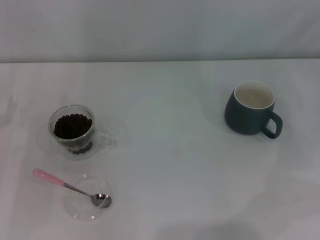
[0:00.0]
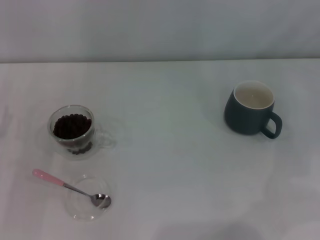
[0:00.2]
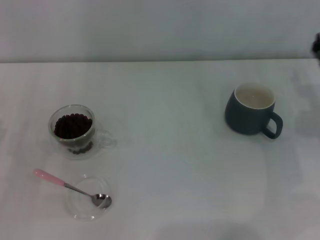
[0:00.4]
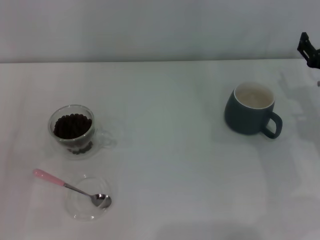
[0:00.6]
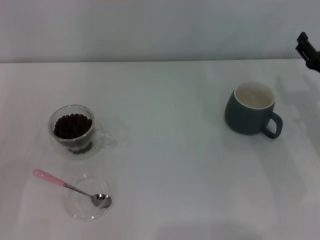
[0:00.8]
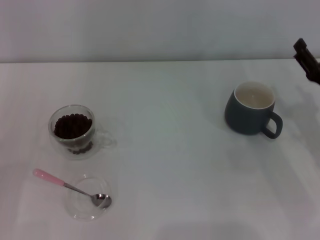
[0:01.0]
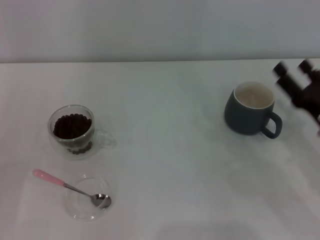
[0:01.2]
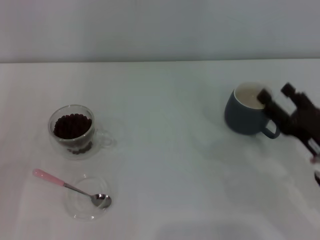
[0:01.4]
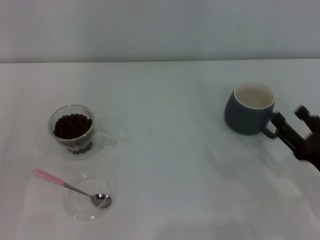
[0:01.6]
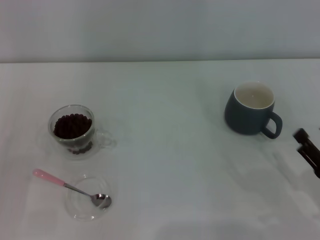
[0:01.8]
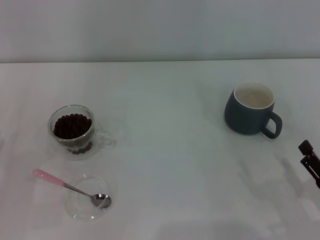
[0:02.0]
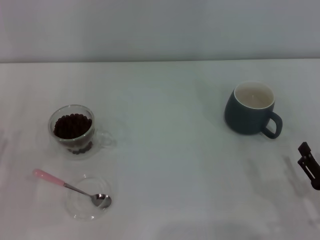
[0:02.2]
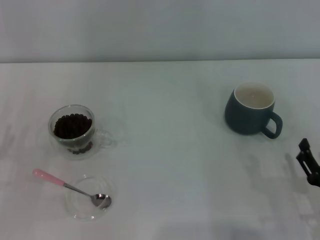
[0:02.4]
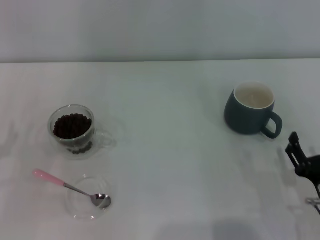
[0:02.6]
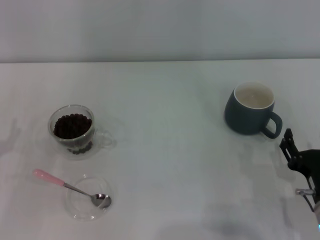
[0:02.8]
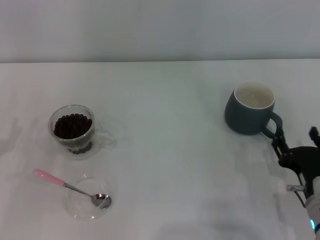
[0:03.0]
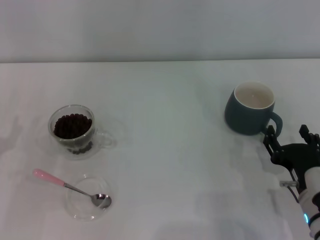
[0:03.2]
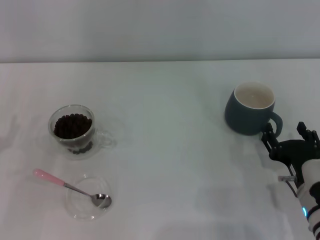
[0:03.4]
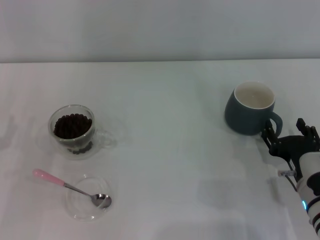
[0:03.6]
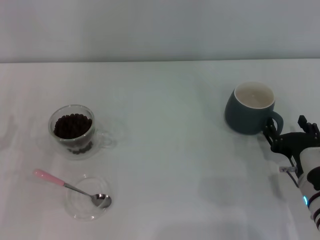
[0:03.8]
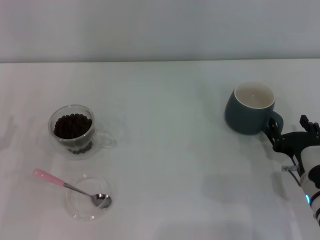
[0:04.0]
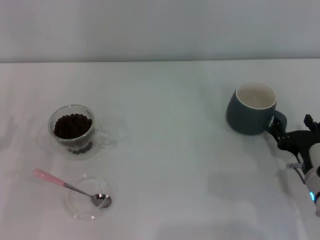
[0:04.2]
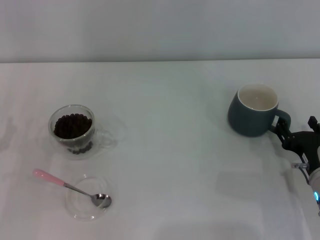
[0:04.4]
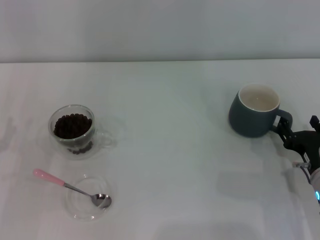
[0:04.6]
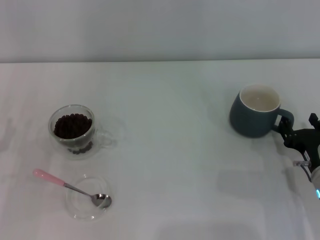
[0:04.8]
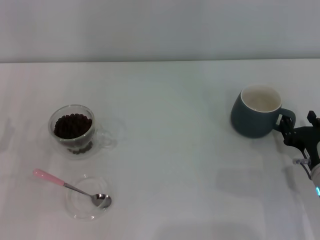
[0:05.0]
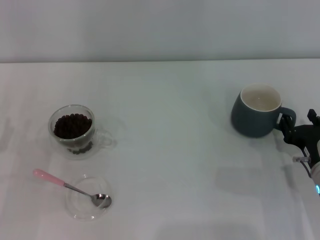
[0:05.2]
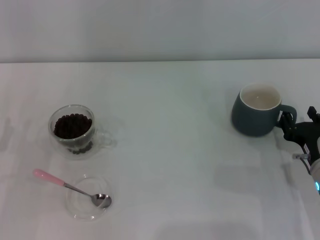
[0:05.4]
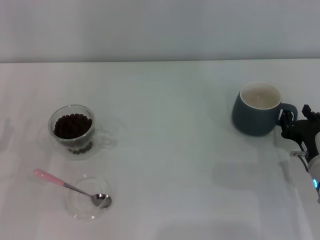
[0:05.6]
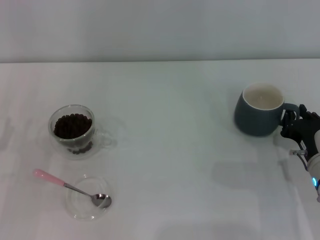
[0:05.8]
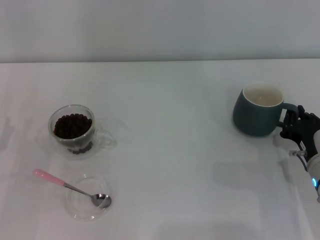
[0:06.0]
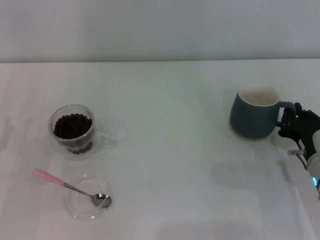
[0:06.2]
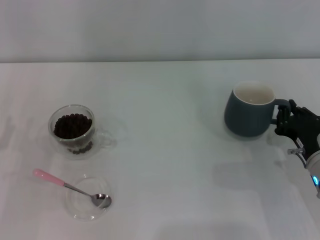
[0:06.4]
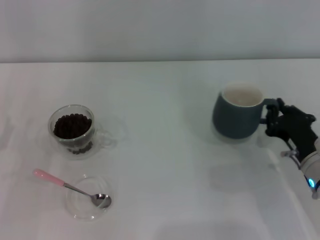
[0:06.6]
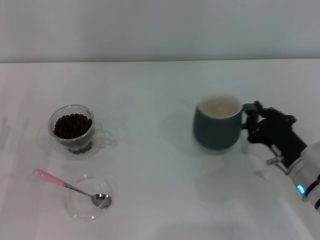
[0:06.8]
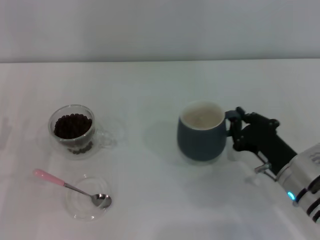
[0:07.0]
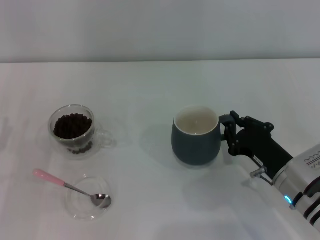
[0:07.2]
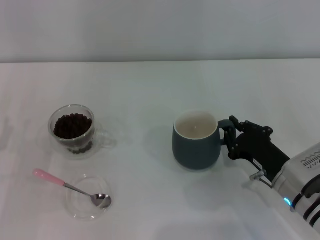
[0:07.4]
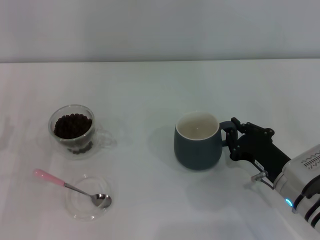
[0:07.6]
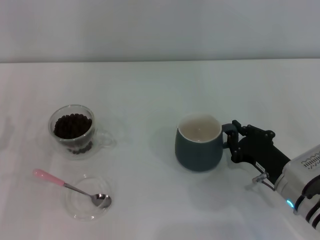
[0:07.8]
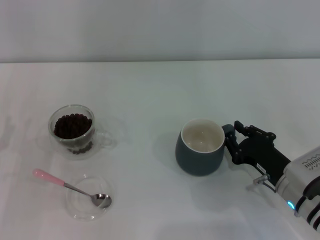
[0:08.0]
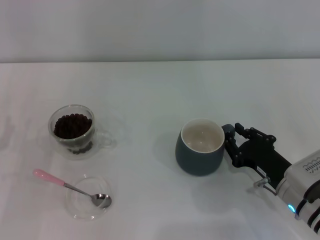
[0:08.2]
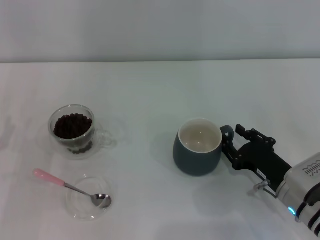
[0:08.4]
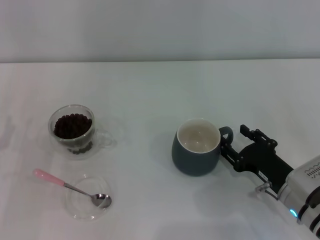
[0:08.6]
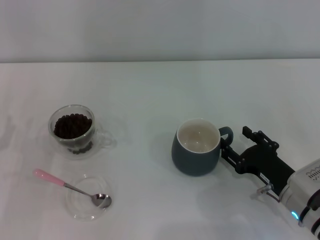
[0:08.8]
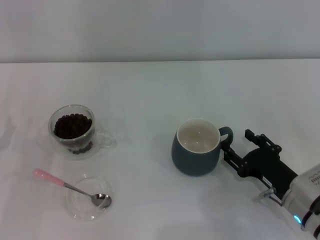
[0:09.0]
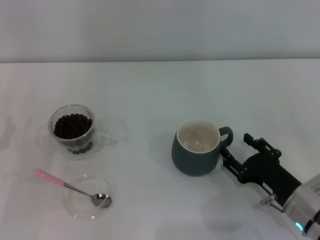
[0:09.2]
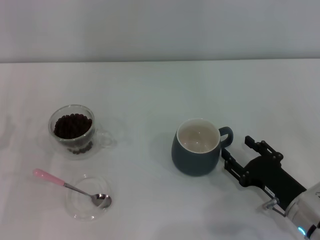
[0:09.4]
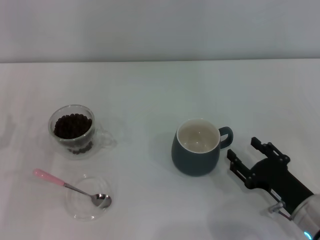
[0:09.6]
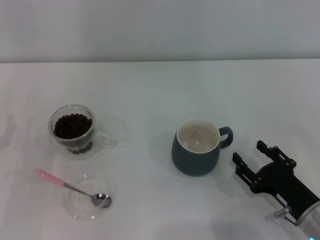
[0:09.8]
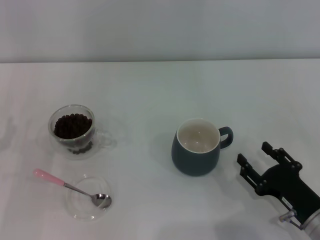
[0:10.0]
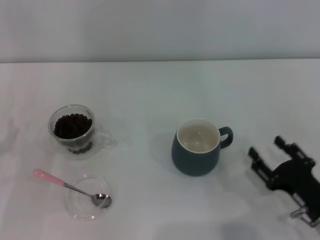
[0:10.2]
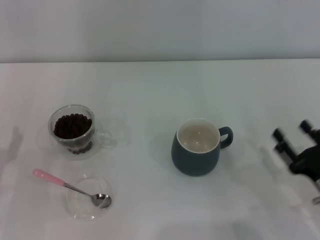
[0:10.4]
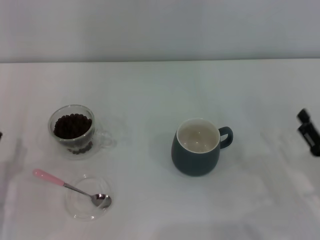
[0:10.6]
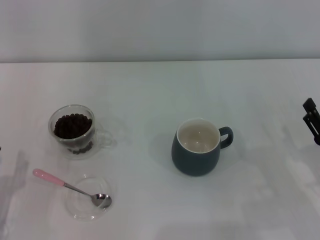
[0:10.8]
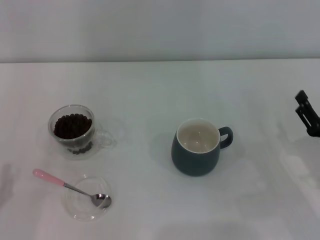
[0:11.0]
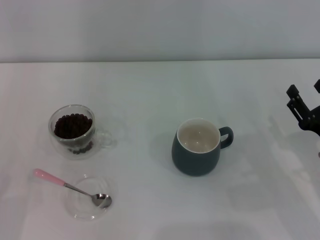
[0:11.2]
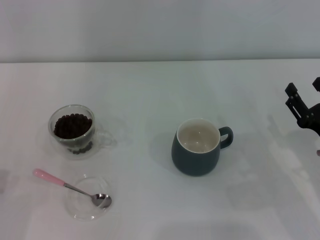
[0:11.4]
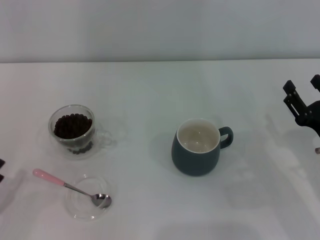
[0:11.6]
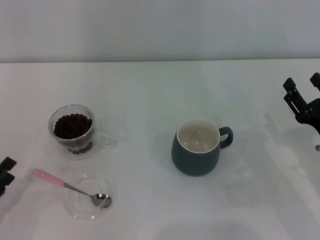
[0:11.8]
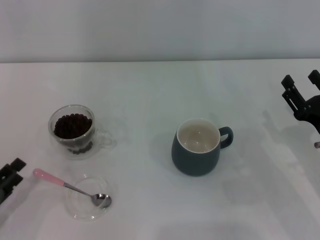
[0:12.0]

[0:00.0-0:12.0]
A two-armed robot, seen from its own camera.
Task of the whole recording: Use a pink spoon to take out the coffee beans from the glass and pour them into the gray cup.
Step, 0:00.0 to 0:09.8: Move the cup to the center of view with the left gripper.
0:00.0 to 0:01.6: The right gripper heads backward, to the left and downward, covering approximately 20 cm.
0:01.6 to 0:03.0: The right gripper shifts roughly 5 cm to the left.
0:03.0 to 0:04.4: The right gripper moves approximately 5 cm.
0:04.4 to 0:06.0: The right gripper closes its fingers.
0:07.6 to 0:09.0: The right gripper opens.
0:09.0 to 0:10.4: The right gripper changes place by approximately 5 cm.
0:10.4 to 0:12.0: The left gripper heads backward, covering about 5 cm; the right gripper is displaced forward by approximately 5 cm.

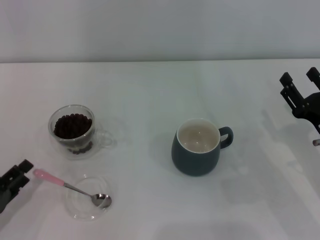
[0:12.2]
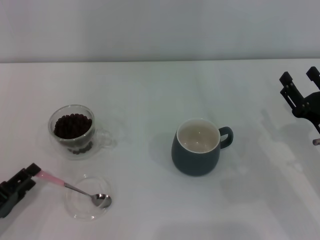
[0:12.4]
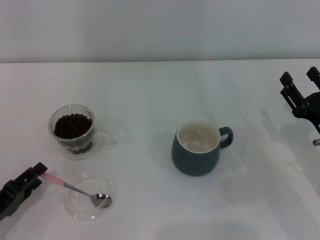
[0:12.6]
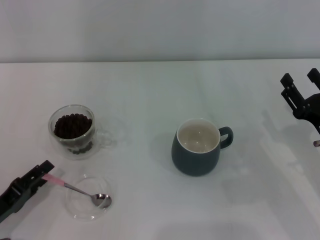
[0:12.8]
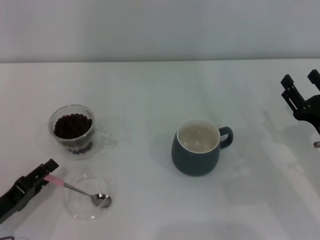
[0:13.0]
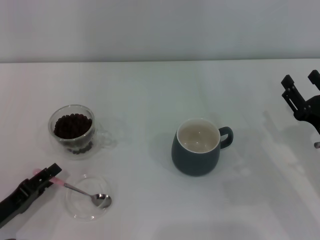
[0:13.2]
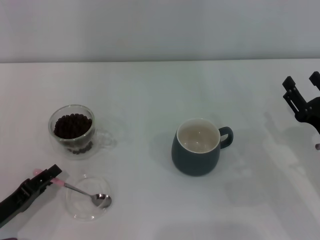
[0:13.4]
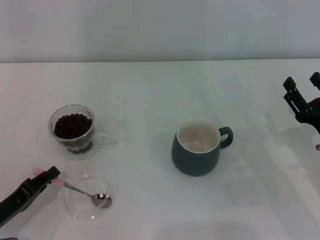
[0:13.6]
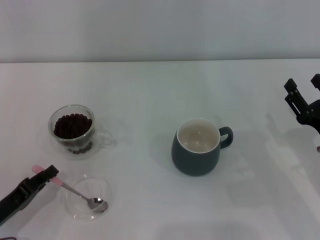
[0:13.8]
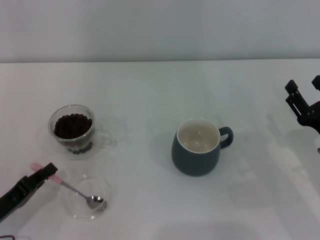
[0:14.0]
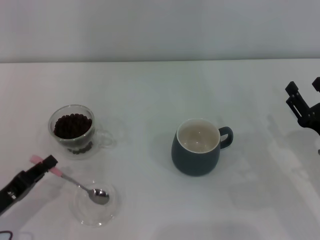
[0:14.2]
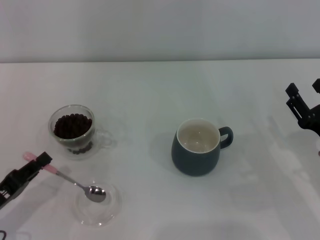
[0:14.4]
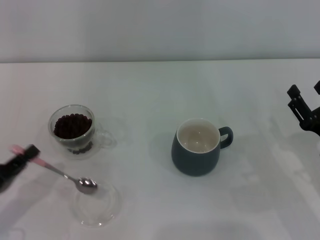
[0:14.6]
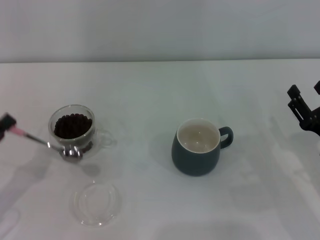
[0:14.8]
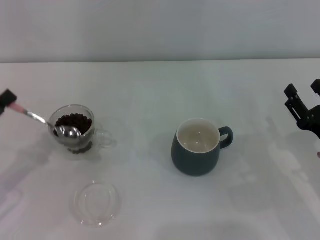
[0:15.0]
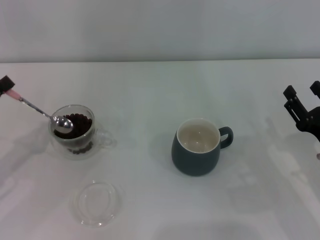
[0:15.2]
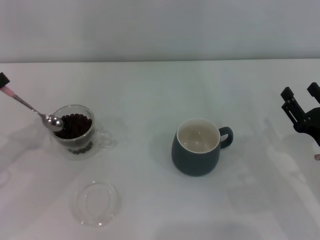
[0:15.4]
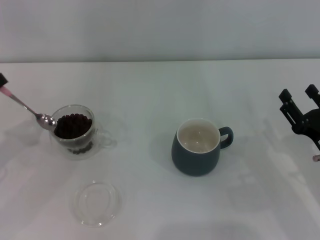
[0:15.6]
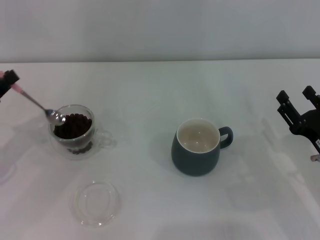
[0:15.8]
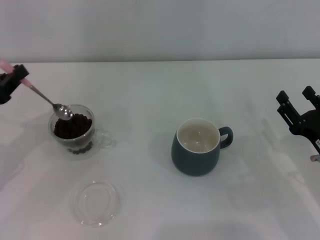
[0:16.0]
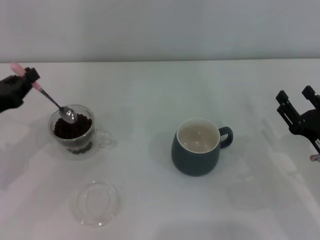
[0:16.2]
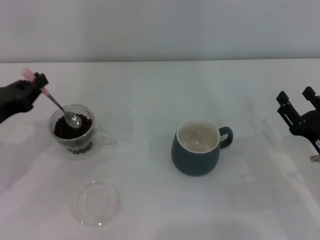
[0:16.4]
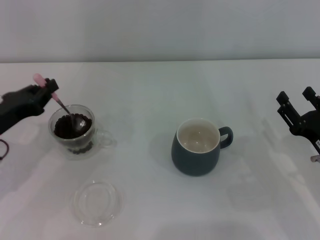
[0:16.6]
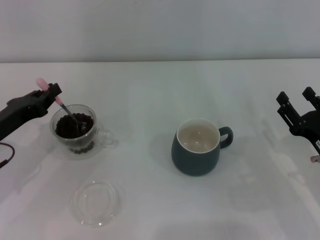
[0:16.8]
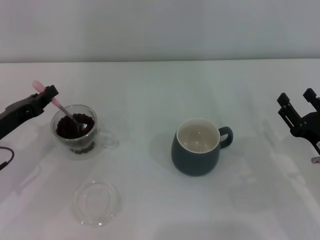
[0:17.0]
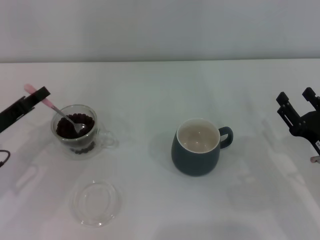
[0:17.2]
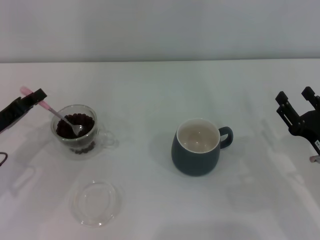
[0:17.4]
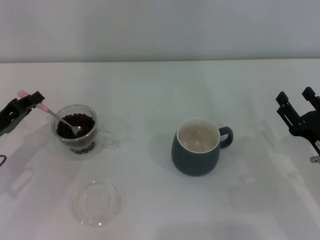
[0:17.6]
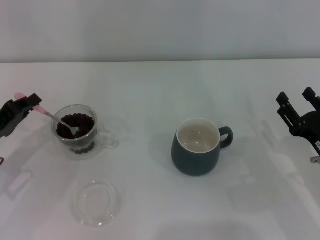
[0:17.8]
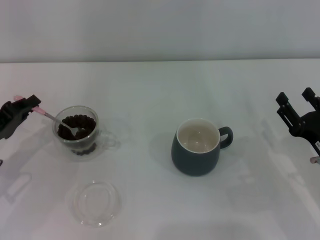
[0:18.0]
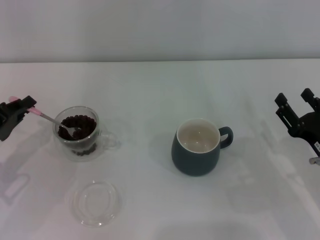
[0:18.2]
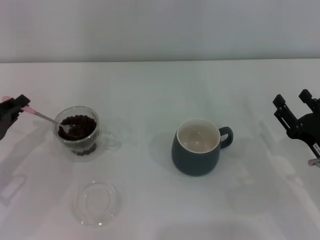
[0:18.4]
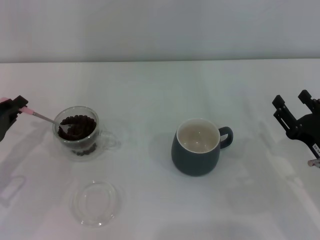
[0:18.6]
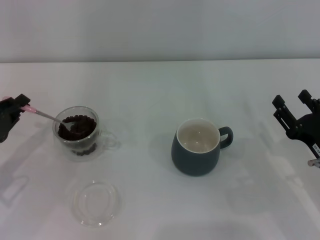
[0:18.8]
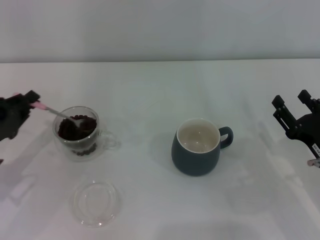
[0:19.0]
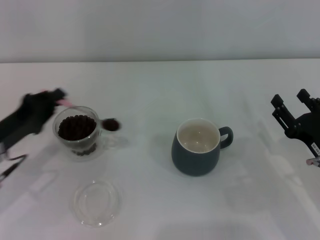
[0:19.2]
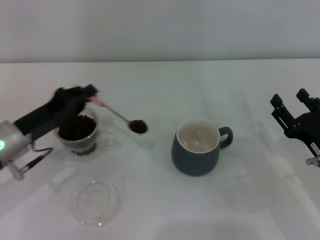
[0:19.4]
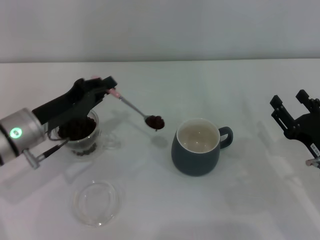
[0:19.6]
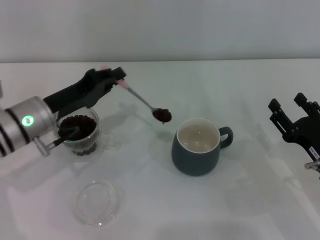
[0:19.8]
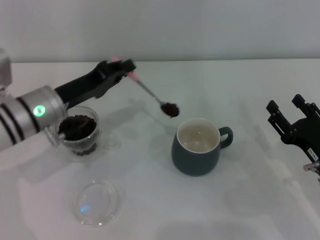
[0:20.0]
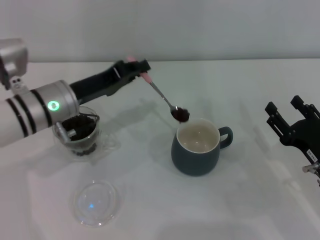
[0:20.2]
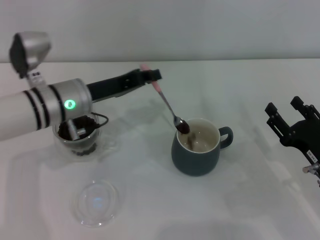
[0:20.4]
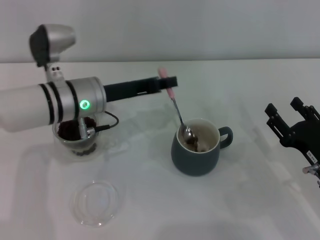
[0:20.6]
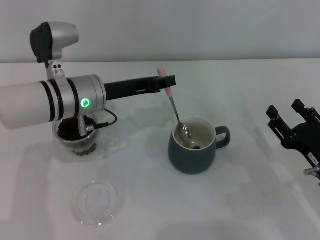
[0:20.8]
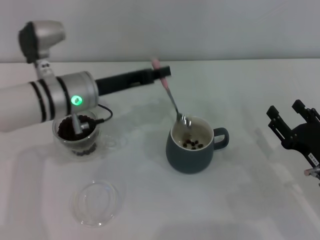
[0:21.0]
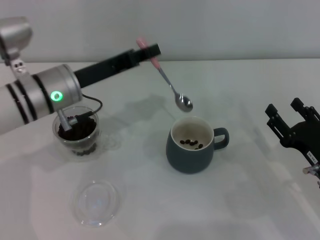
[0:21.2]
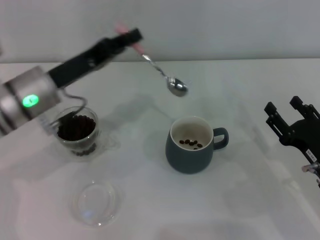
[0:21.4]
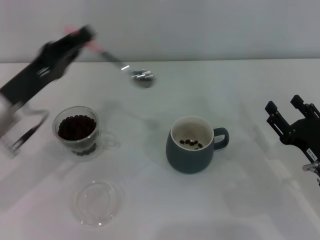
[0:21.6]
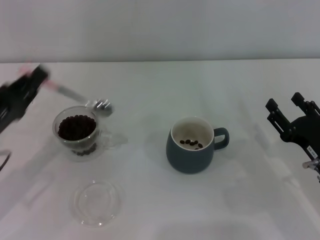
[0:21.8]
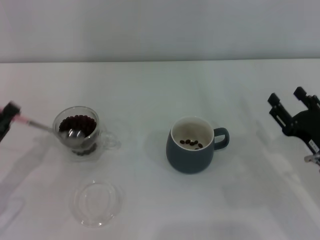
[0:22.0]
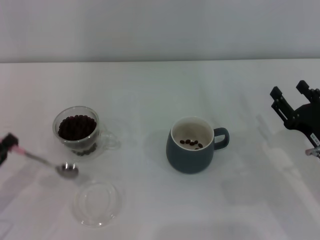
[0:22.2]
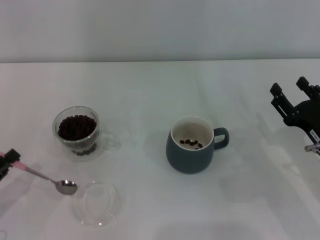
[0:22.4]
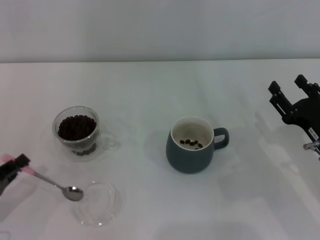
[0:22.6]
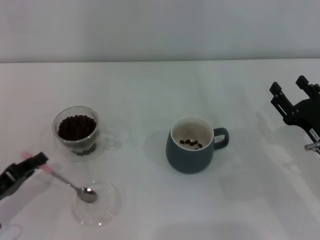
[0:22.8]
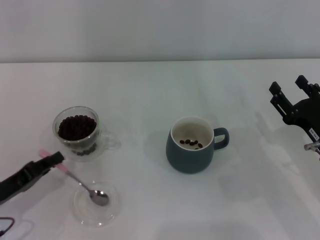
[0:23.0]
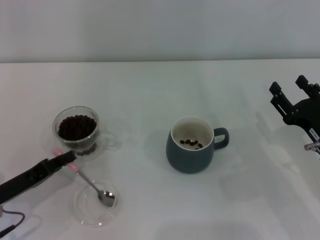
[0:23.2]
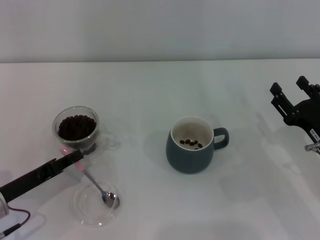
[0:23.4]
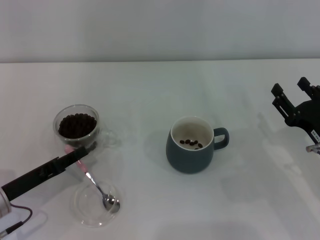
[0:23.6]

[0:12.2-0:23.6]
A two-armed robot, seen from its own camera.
Task of the whole recording: Use a pink spoon to take out the coffee beans from the glass and pour them into the gray cup.
Step, 0:12.2 to 0:14.4: Pick up the spoon with the right gripper.
0:12.2 to 0:13.6: The left gripper closes.
0:13.6 to 0:15.0: The left gripper travels upward by roughly 10 cm, and closes.
0:15.0 to 0:16.4: The left gripper travels forward by approximately 5 cm.
0:17.8 to 0:19.4: The left gripper heads to the right, covering some 5 cm.
0:19.4 to 0:20.8: The left gripper moves to the right and forward, approximately 15 cm.
0:20.8 to 0:22.2: The left gripper moves to the left and backward, some 25 cm.
0:22.2 to 0:23.6: The left gripper is displaced to the right by some 5 cm.
